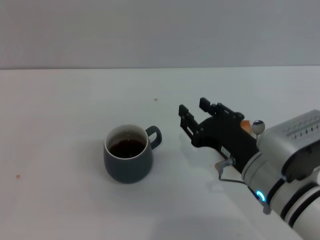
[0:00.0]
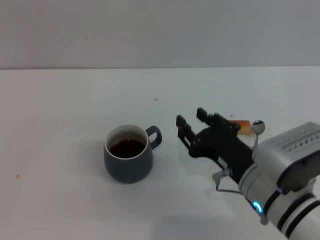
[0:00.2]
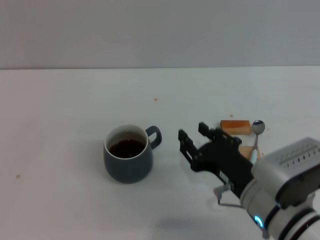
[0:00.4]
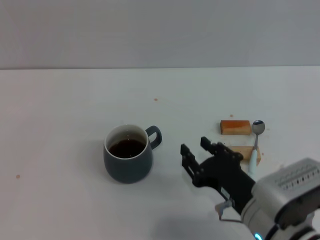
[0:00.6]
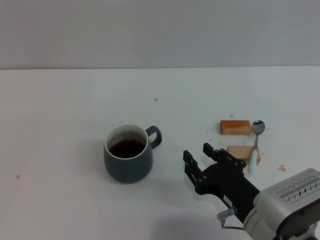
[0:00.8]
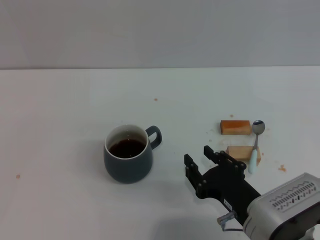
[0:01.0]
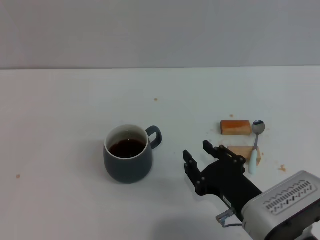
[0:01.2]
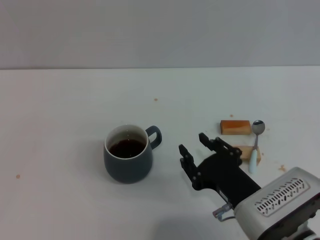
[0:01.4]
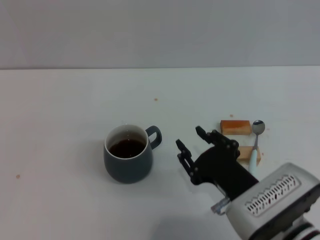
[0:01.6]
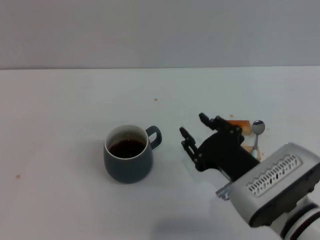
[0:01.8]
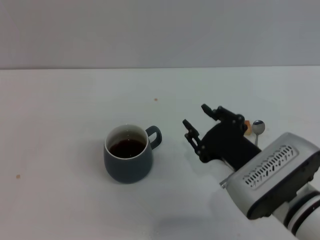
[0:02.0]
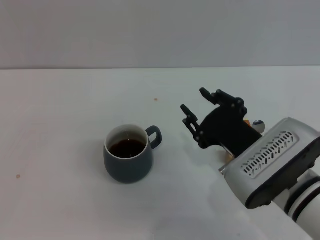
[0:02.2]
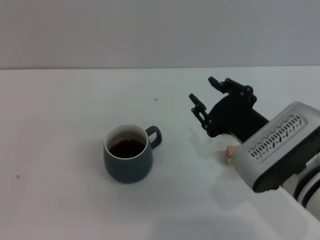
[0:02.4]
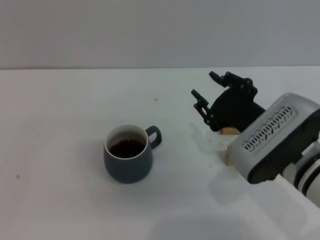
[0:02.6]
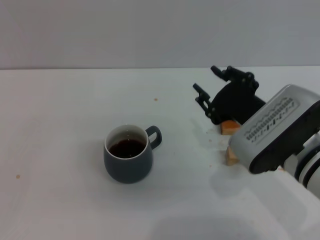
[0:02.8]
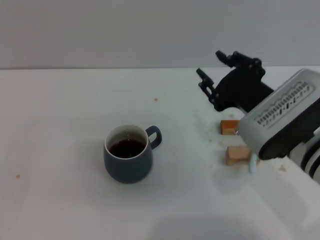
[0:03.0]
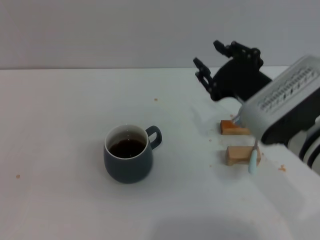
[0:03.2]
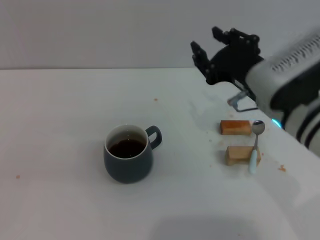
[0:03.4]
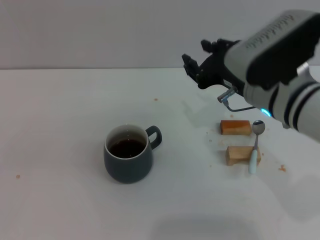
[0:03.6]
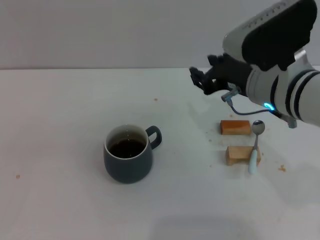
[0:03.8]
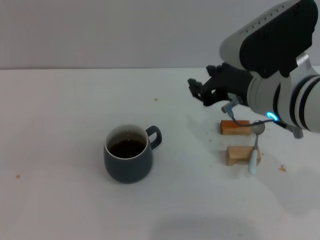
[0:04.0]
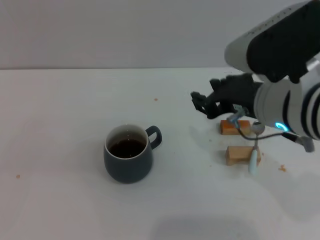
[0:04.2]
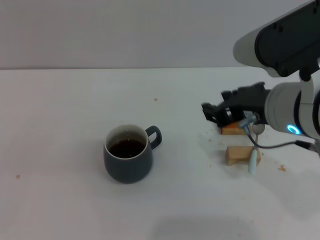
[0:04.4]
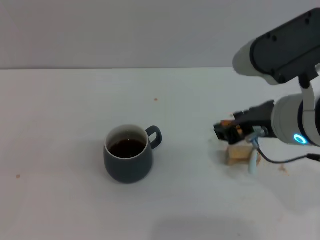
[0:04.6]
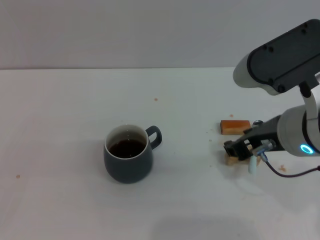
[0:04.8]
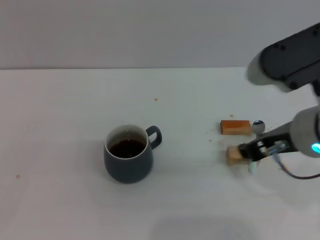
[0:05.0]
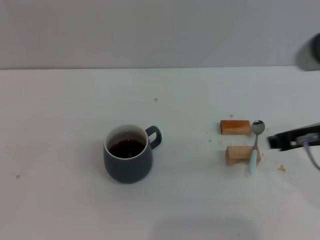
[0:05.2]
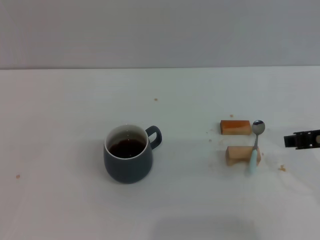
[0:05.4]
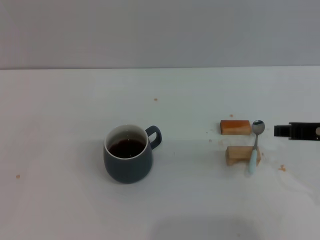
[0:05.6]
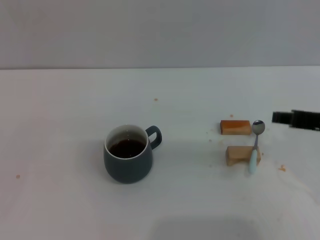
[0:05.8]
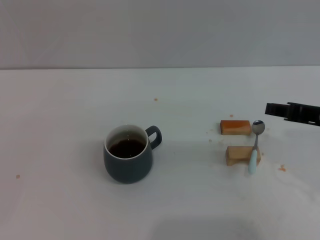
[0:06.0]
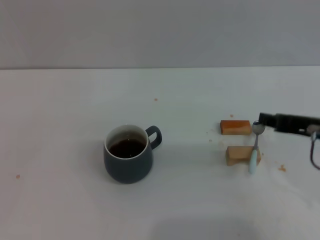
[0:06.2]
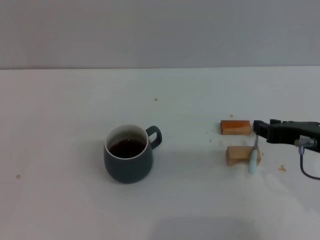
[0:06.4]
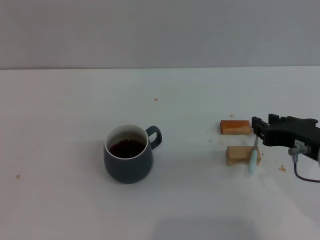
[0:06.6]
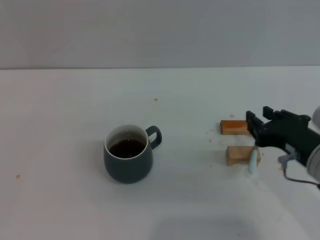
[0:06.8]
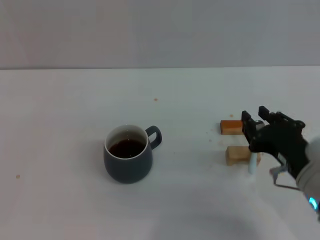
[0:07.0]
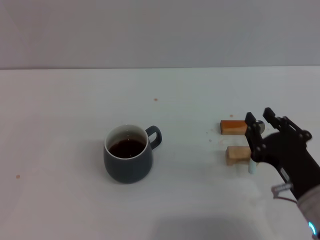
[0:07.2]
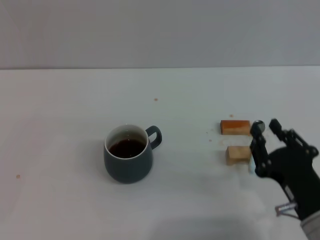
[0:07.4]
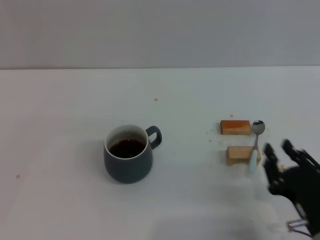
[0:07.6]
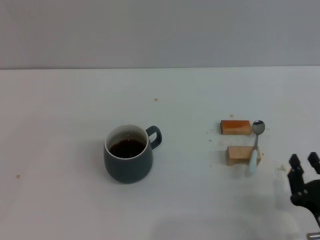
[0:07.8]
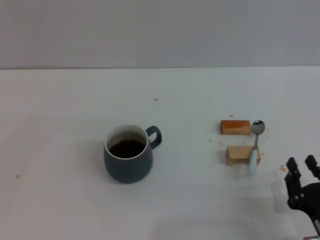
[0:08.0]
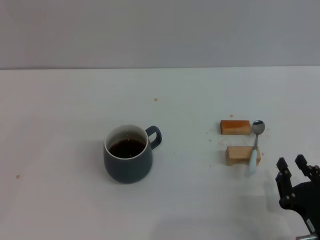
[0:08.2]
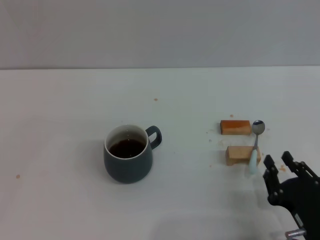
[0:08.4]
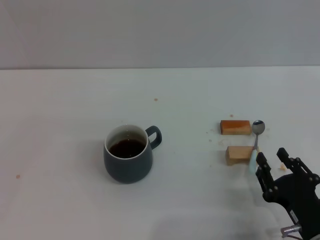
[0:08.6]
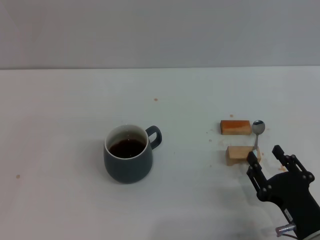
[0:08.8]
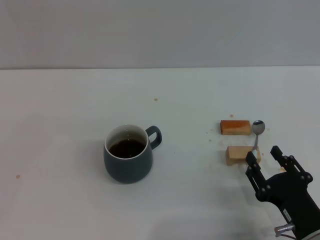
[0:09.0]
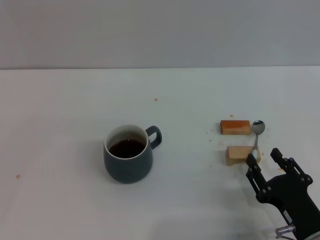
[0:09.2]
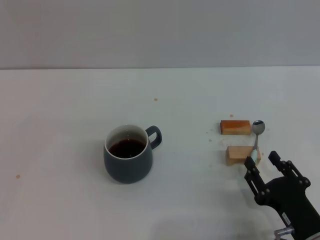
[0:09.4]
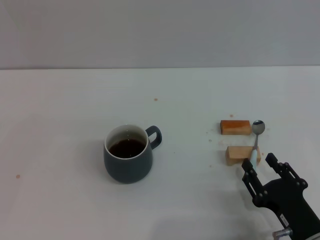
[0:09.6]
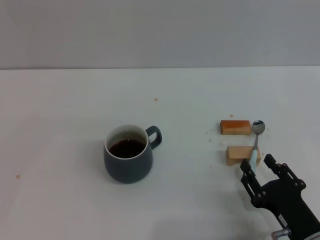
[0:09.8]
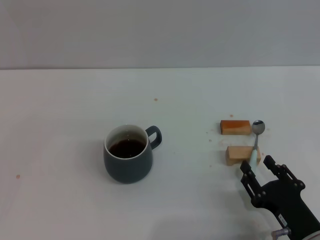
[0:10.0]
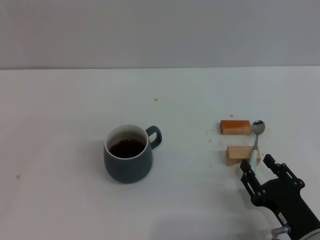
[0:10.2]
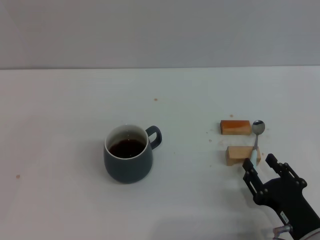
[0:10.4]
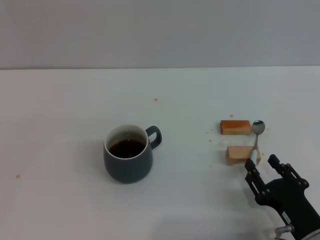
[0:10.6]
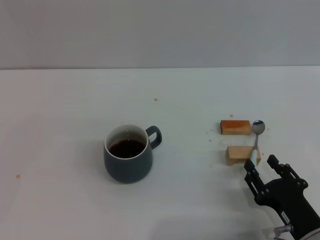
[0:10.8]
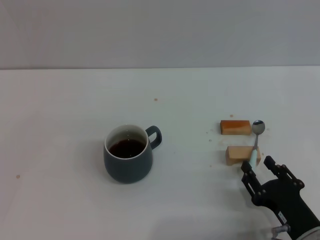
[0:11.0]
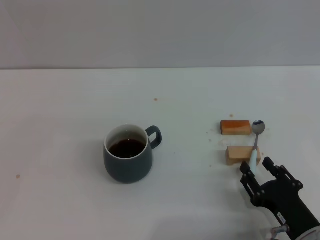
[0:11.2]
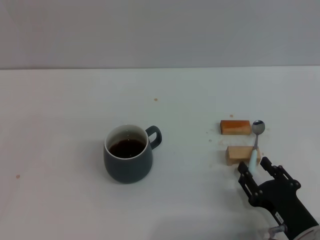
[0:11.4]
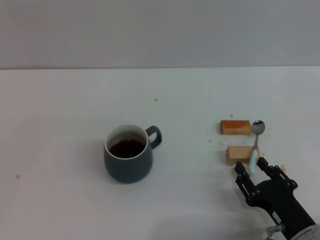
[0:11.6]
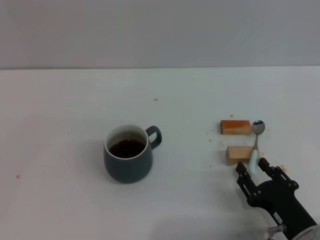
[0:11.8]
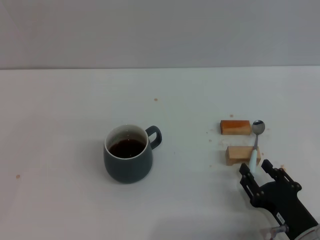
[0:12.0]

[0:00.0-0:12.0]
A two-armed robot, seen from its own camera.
Task of the whole recording: Move the grey cup to the center, lift the blue spoon, stir it three times in the cup, and put the spoon into the cup.
0:00.0 to 0:01.6: The right gripper shifts by roughly 5 cm.
0:01.6 to 0:03.0: The right gripper shifts approximately 10 cm upward and forward.
0:03.0 to 0:04.4: The right gripper moves upward, roughly 5 cm.
0:04.4 to 0:06.0: The right gripper heads to the right, covering approximately 10 cm.
0:06.0 to 0:07.6: The right gripper shifts some 20 cm downward and backward.
0:07.6 to 0:09.0: The right gripper opens.
0:09.0 to 0:10.4: There are only small adjustments of the grippers.
0:10.4 to 0:12.0: The two grippers keep their place.

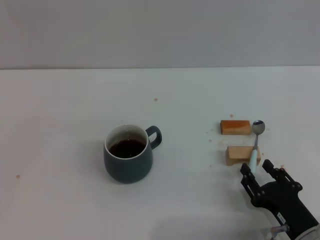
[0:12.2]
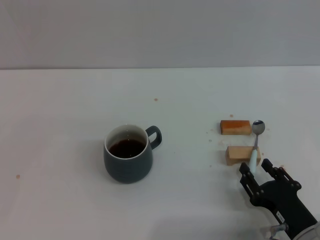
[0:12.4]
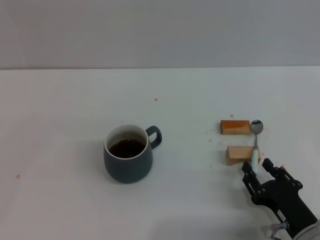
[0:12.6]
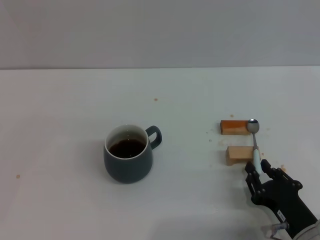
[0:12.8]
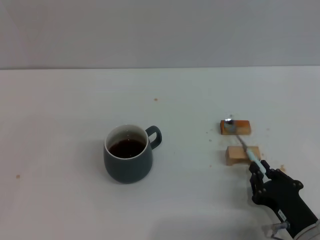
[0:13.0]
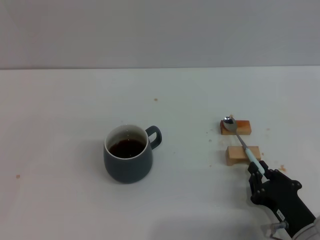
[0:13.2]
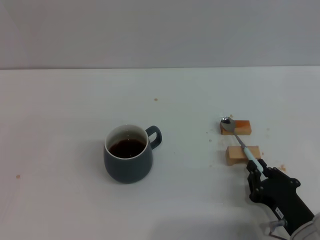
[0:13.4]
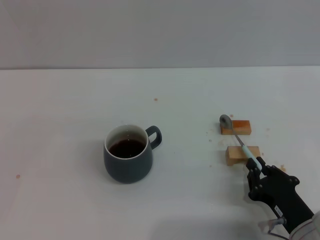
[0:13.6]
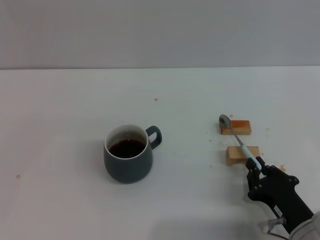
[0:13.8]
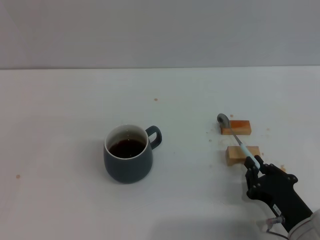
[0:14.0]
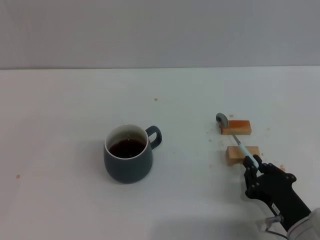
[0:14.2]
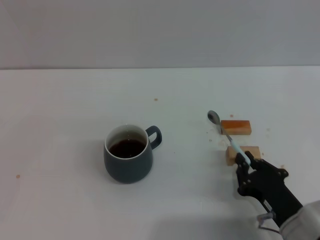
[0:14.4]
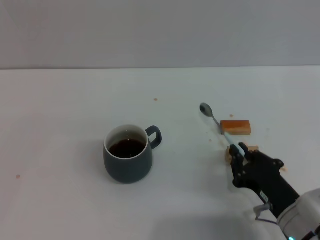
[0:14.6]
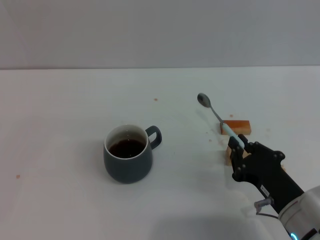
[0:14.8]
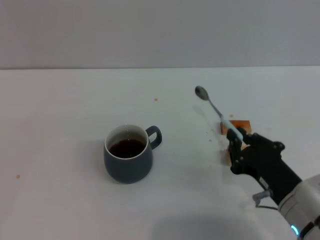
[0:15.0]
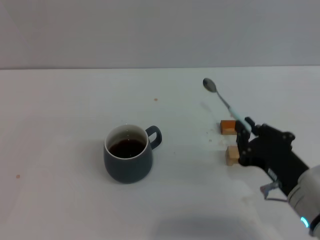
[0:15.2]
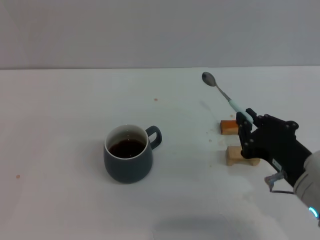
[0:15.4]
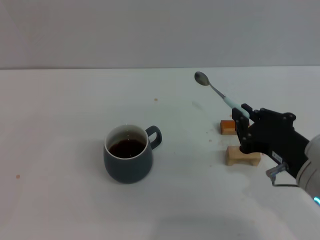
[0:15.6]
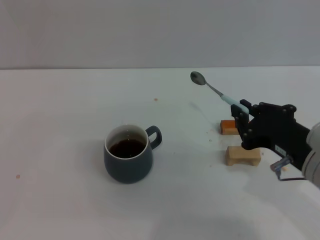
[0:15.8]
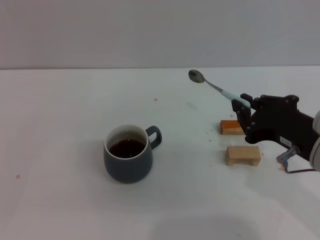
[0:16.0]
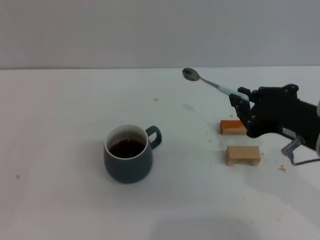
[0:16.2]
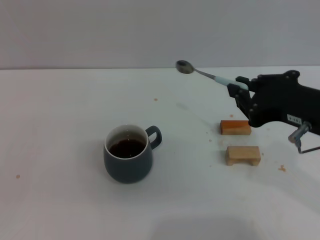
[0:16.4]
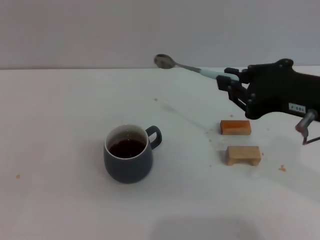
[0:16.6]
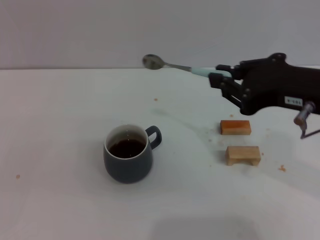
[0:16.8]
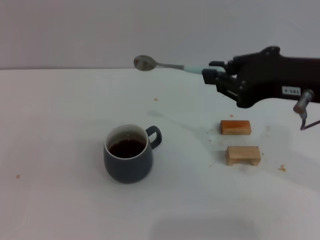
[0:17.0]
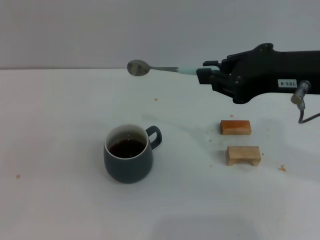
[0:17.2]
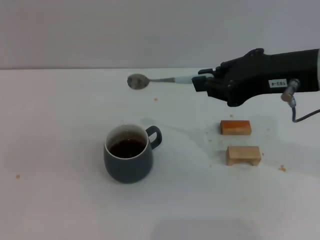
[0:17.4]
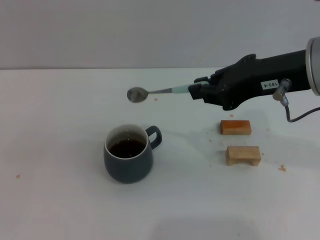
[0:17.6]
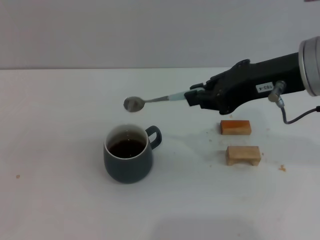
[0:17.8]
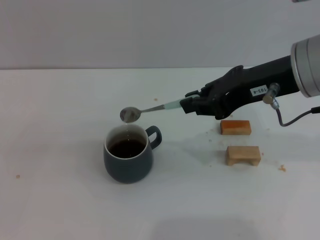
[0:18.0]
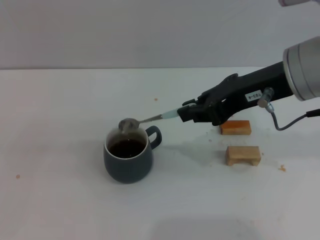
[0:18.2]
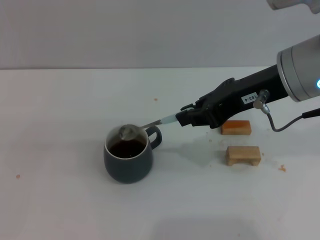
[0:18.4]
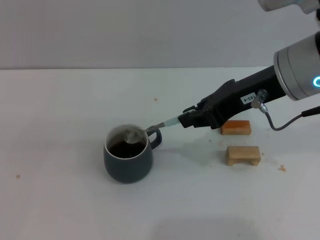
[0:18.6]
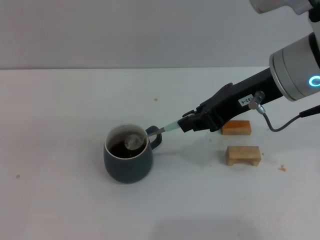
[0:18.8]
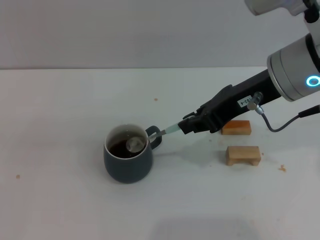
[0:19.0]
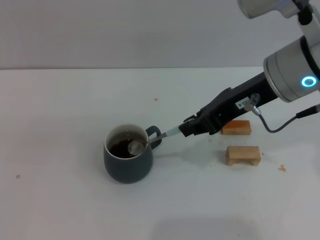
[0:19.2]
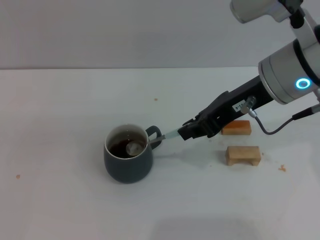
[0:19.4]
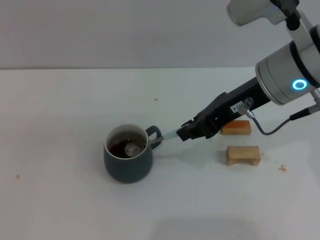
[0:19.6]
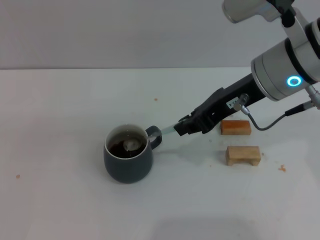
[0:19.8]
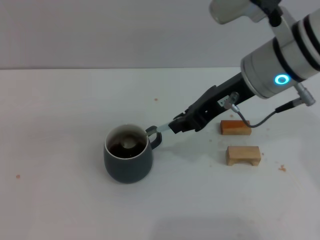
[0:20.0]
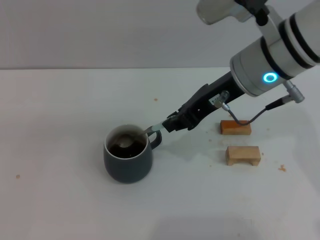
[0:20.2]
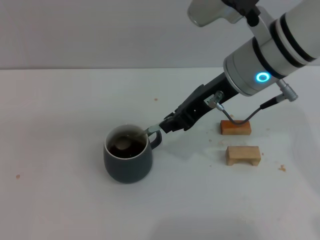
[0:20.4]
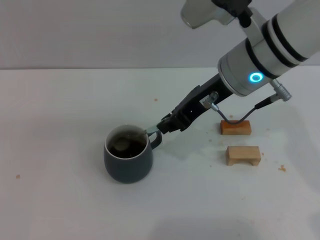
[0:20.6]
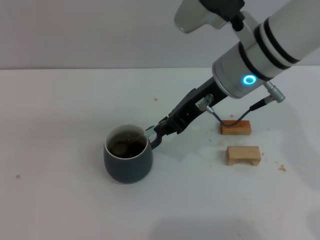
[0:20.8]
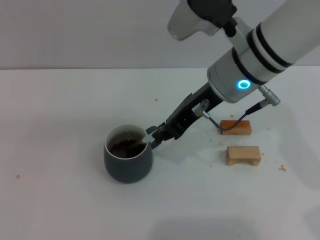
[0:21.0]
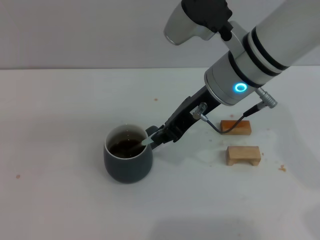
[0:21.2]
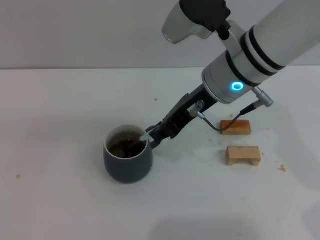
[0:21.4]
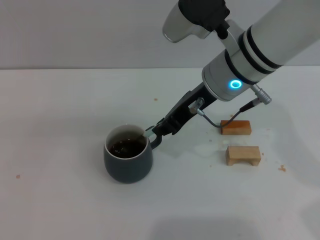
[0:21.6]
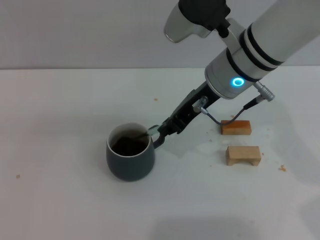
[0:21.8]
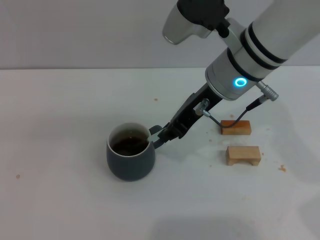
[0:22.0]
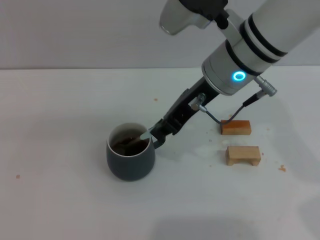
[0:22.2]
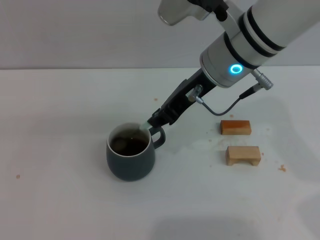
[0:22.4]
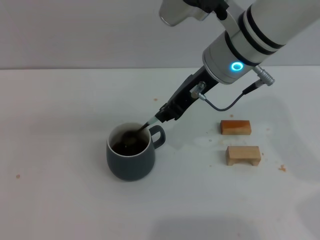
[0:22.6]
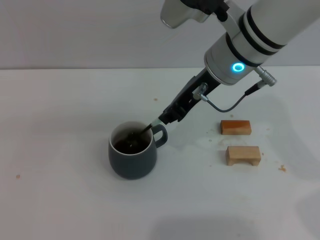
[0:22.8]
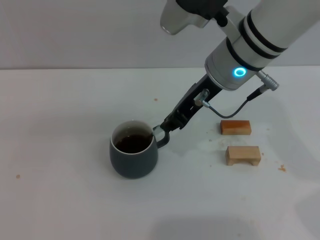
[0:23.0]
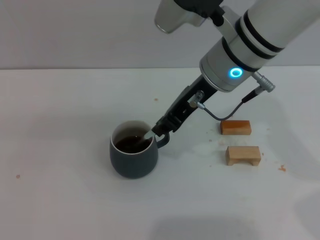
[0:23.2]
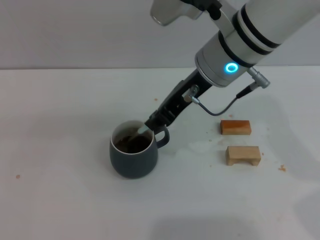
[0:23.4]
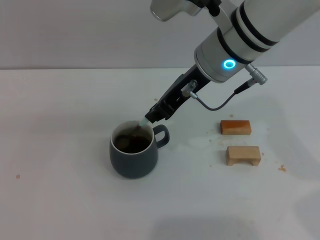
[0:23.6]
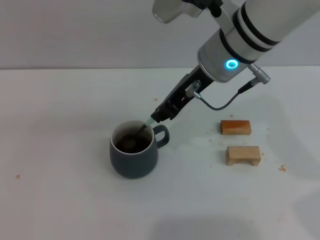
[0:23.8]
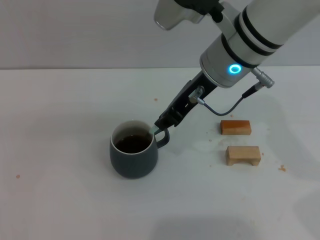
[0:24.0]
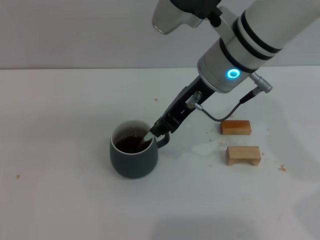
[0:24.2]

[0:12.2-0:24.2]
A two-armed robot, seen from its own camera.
Task of the whole recording: Move the grey cup to the center, lift the blue spoon, stir it three times in the cup, and put the spoon into the cup.
Step, 0:12.2 to 0:14.4: Pick up the spoon with the right gripper.
0:12.2 to 0:13.8: The right gripper closes its fingers.
0:13.8 to 0:15.2: The right gripper is displaced upward by approximately 10 cm.
0:15.2 to 0:16.6: The right gripper shifts approximately 15 cm upward.
0:16.6 to 0:18.2: The right gripper travels forward by some 5 cm.
0:18.2 to 0:19.8: The grippers make only small movements.
0:19.8 to 0:21.2: The right gripper ends up about 5 cm from where it was.
0:21.2 to 0:24.2: The grippers stay close to where they were, moving slightly.
